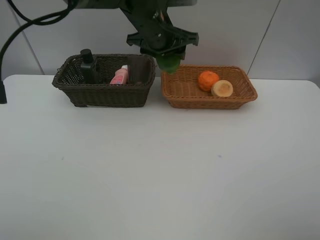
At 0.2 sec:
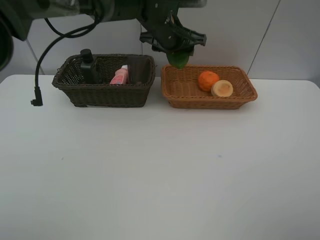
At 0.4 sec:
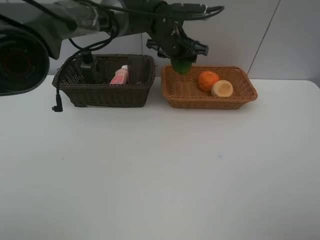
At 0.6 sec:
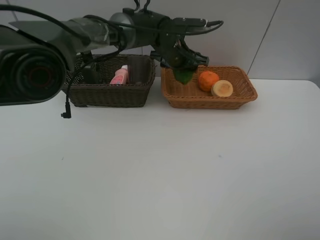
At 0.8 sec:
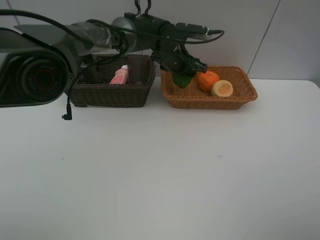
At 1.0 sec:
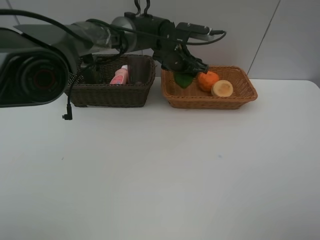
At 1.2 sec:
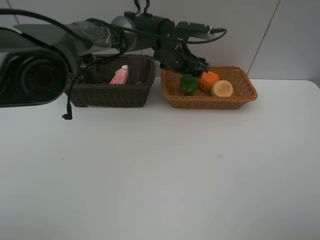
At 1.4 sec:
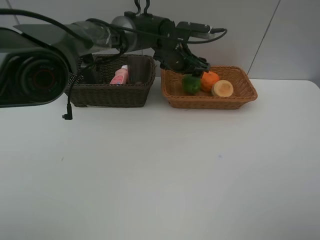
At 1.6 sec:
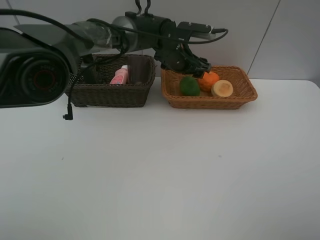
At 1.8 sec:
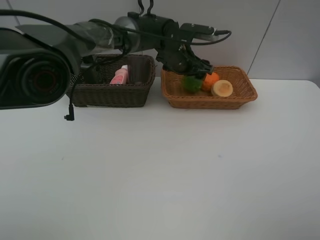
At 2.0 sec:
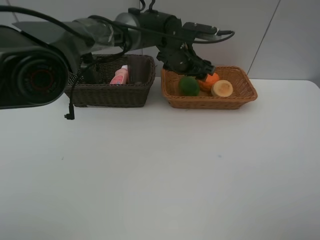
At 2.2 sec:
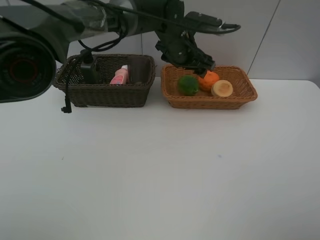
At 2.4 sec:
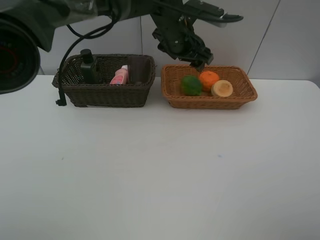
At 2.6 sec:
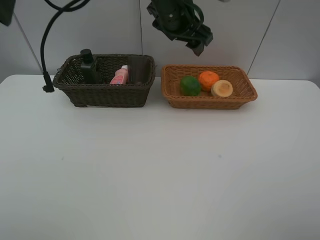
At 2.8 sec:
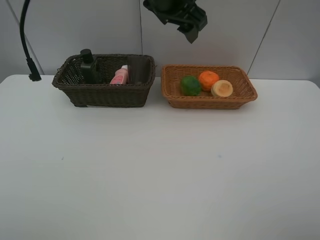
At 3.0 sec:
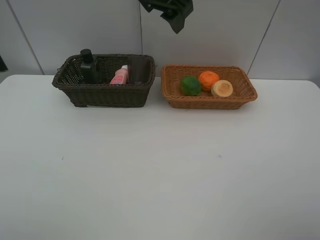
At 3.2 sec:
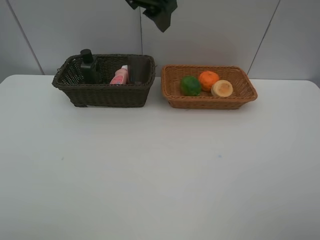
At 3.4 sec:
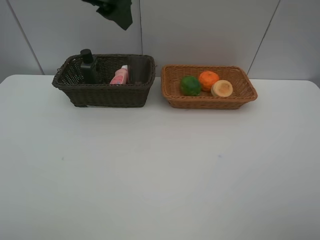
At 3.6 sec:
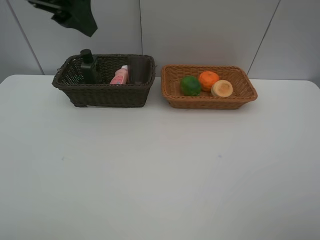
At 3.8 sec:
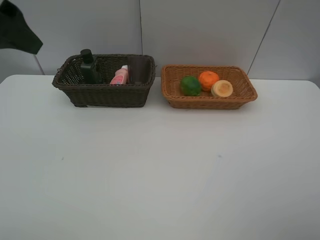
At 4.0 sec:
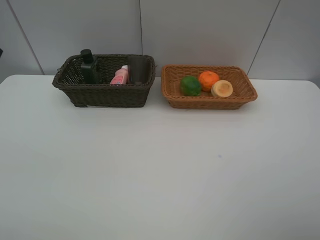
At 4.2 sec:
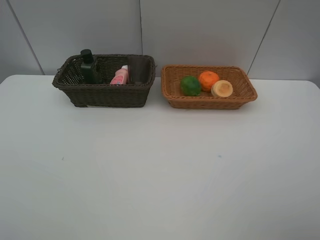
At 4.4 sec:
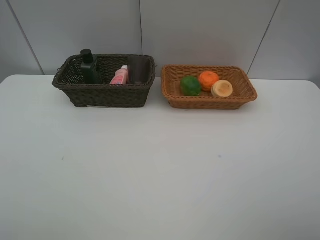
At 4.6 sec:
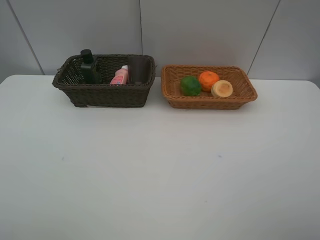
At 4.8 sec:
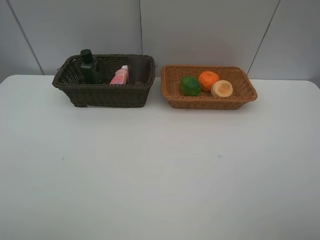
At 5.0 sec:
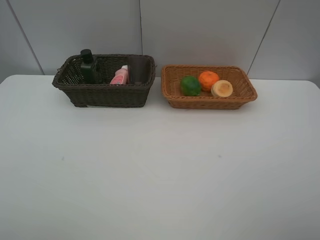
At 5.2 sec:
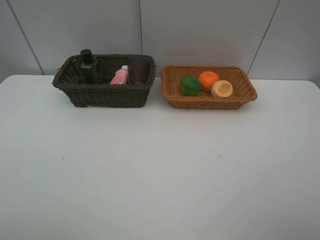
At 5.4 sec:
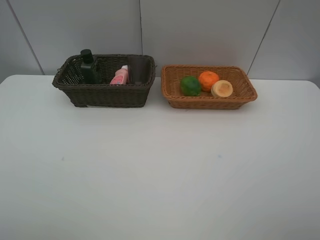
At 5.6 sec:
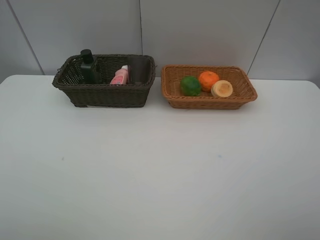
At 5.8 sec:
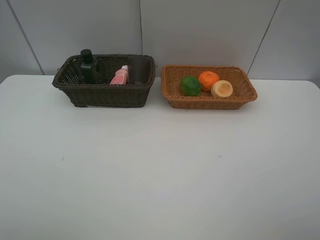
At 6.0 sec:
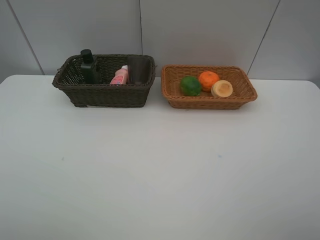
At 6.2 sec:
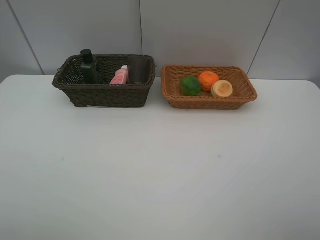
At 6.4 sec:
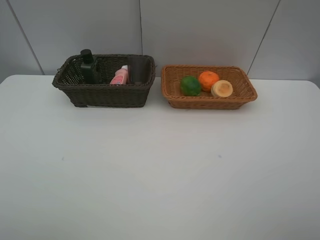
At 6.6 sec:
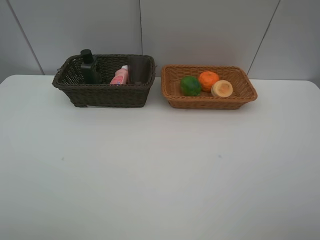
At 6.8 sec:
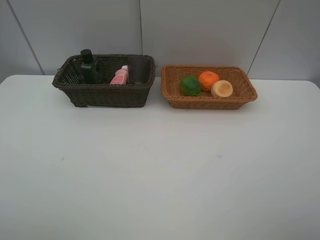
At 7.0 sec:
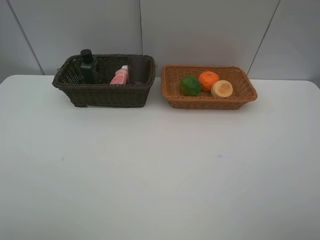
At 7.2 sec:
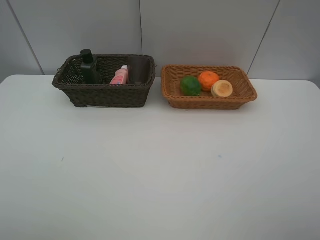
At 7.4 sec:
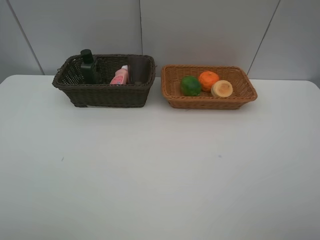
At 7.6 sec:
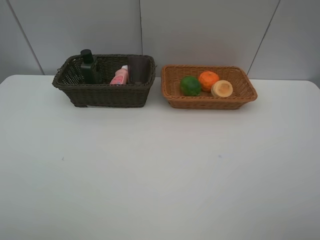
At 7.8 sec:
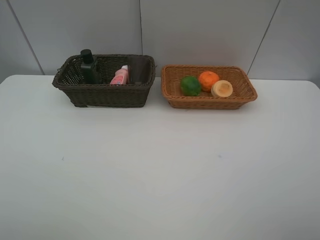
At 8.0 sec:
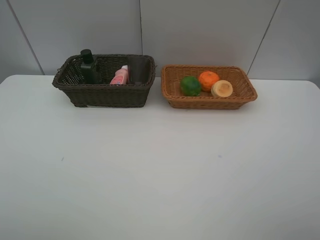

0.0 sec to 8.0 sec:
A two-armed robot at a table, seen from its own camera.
Task of the whole recording: place multiple objects separately in different baskets.
0.0 sec to 1.6 sec: The left gripper travels downward by roughly 10 cm.
1.6 sec to 3.2 sec: The left gripper heads upward, backward and to the left, covering some 25 cm.
3.2 sec to 4.8 sec: The left gripper goes some 40 cm backward and to the left.
6.4 sec to 8.0 sec: Neither gripper changes place.
